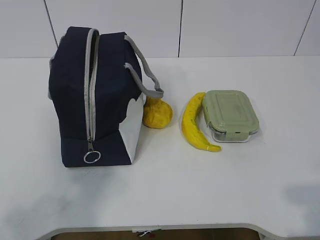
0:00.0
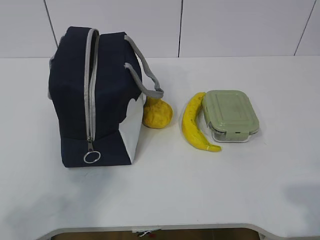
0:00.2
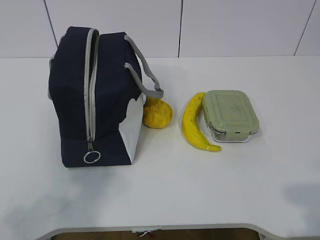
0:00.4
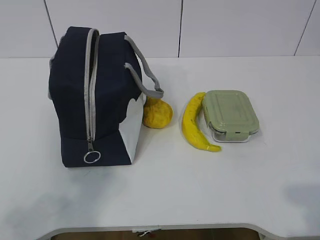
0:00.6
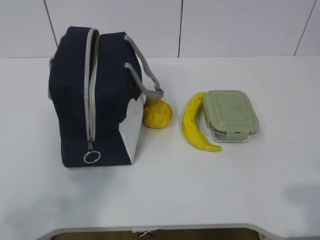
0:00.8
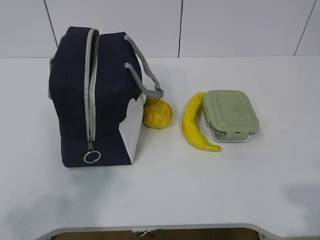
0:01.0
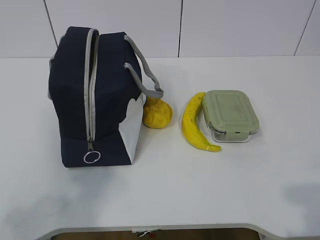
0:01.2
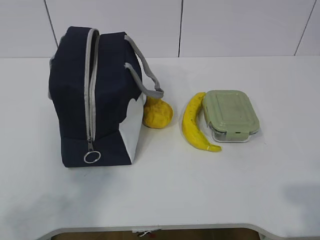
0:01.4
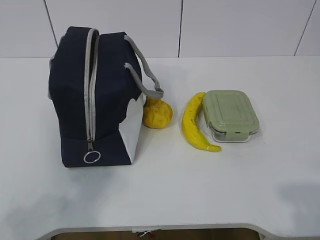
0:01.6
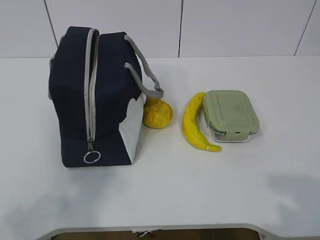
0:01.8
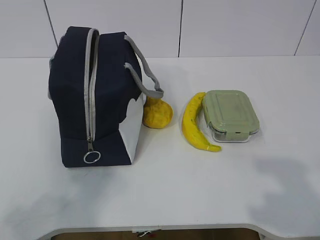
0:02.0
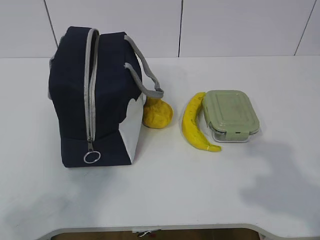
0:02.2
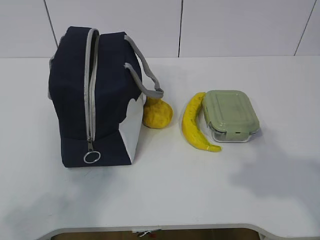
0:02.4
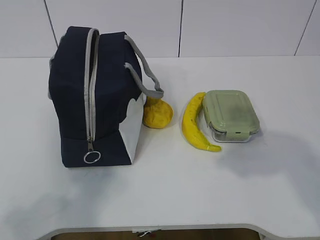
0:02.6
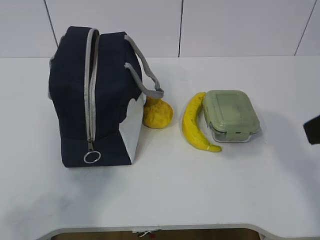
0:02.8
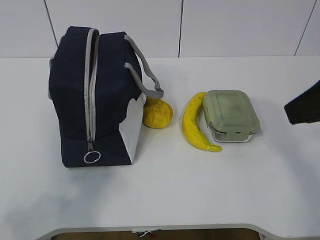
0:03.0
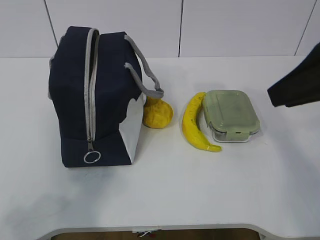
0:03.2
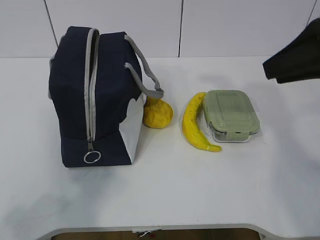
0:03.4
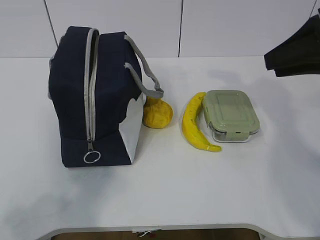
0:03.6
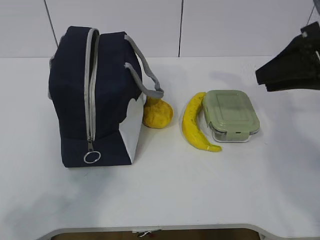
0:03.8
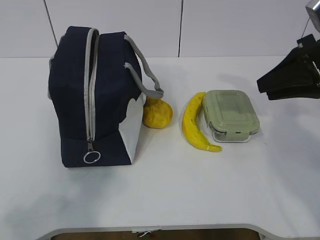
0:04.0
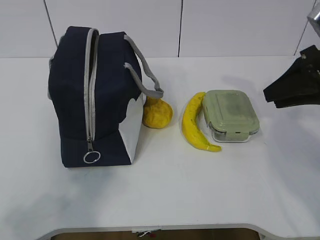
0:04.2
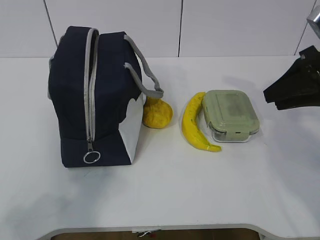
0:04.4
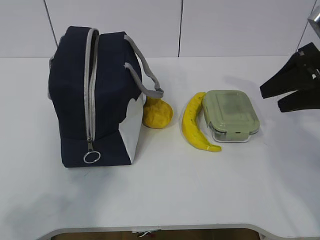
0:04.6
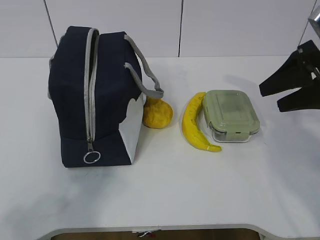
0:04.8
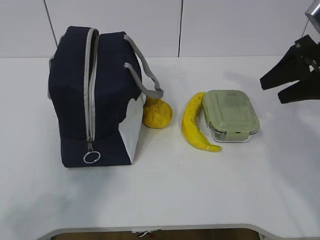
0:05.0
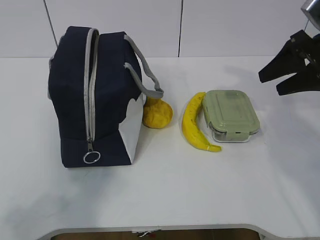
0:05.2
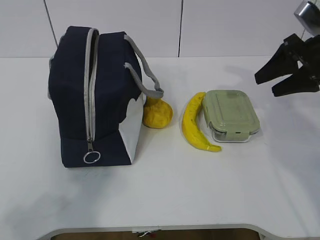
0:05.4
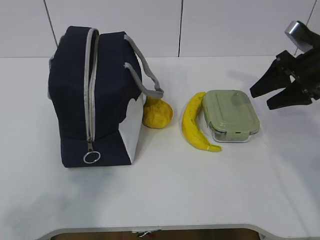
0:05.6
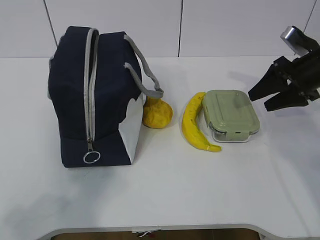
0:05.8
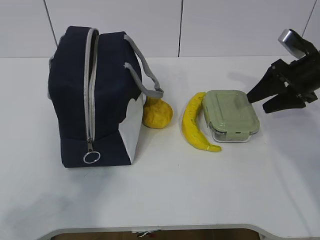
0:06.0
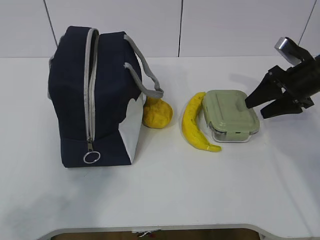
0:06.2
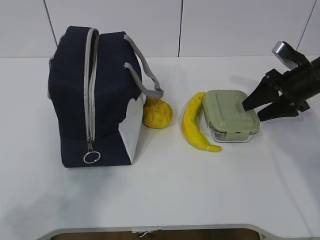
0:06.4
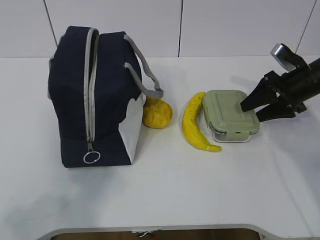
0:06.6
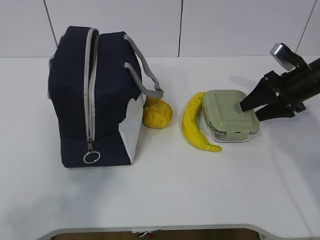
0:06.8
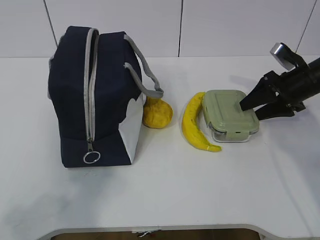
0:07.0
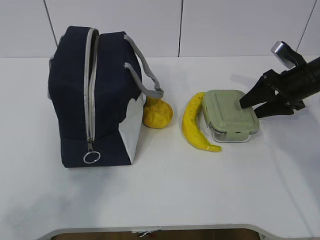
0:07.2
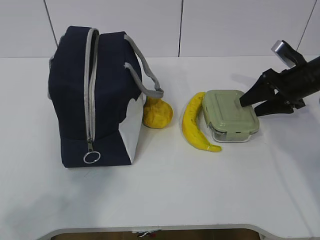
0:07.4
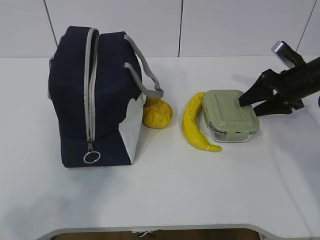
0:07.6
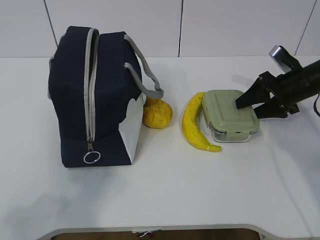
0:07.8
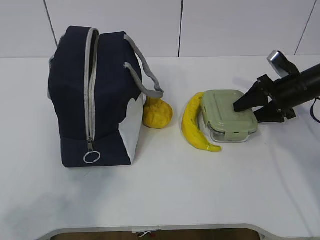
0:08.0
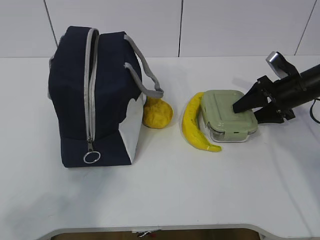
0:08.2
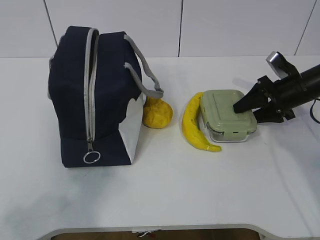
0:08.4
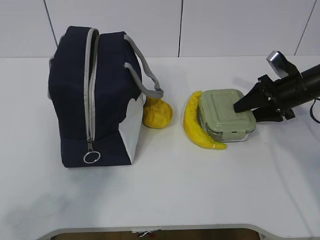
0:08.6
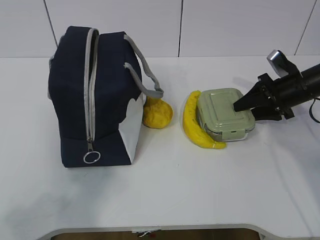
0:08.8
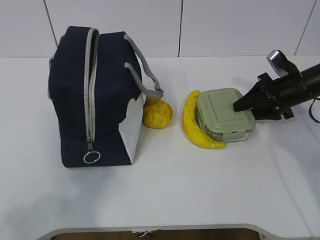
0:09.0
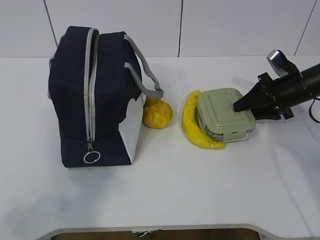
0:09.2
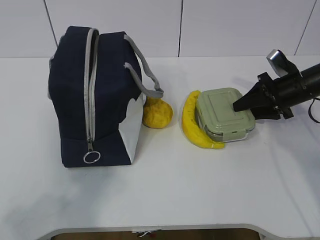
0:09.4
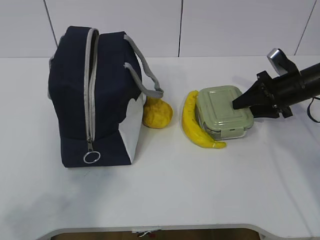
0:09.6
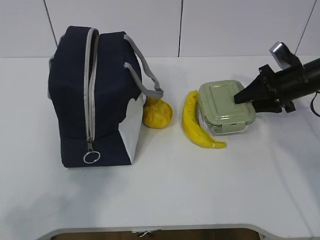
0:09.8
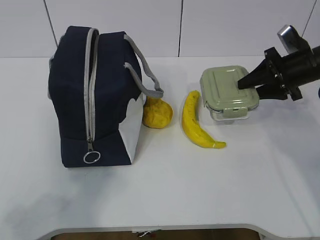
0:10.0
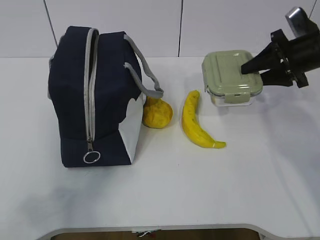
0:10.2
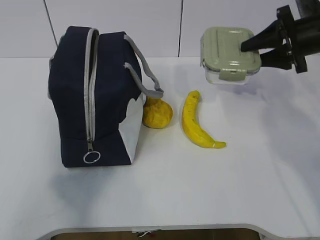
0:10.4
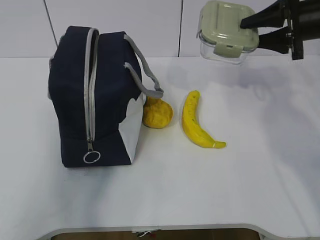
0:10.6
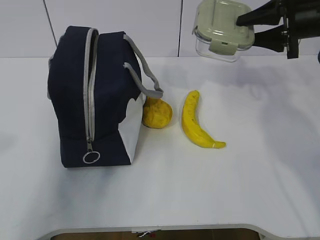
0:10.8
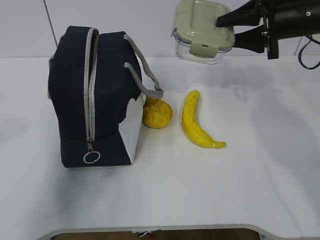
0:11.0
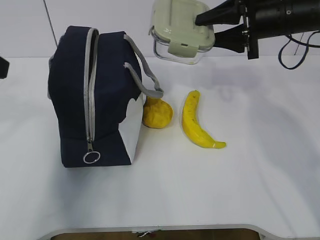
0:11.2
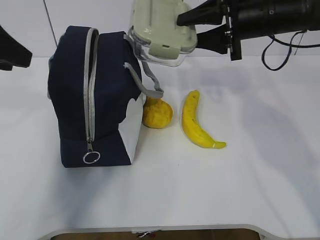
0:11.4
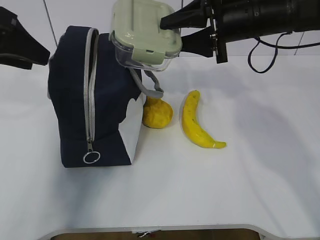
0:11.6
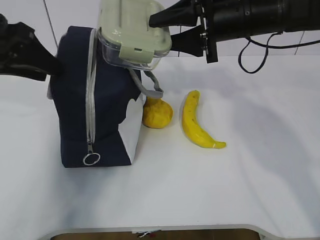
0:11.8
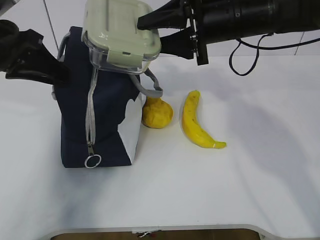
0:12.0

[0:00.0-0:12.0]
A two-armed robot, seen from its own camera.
Step, 0:00.0 to 0:07.8: Grab the lunch box with your right hand.
Step, 0:08.2 to 0:10.4: Grab the lunch bag with your left hand.
0:01.6 to 0:03.0: The right gripper shifts about 20 cm forward.
0:03.0 to 0:04.4: The right gripper is displaced forward, downward and to the right by some 15 cm.
0:04.4 to 0:06.0: The right gripper heads forward and downward, covering about 10 cm.
0:06.0 to 0:09.0: The grippers stay close to where they were, moving slightly.
0:09.0 to 0:10.4: The right gripper travels upward by approximately 10 cm. Meanwhile the left gripper ends up some 5 cm from where it was.
0:10.4 to 0:12.0: The left gripper moves forward, some 30 cm. The right gripper is displaced to the left by approximately 15 cm.

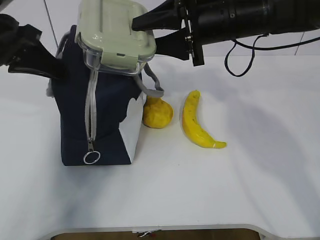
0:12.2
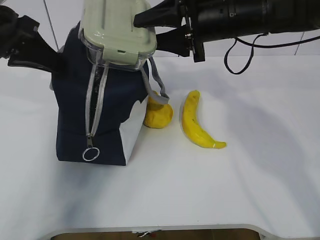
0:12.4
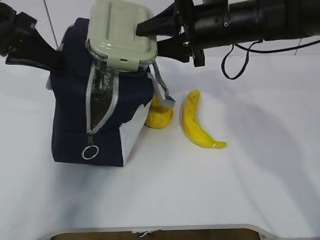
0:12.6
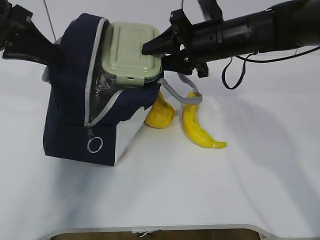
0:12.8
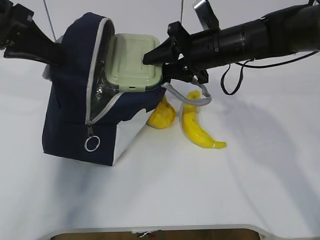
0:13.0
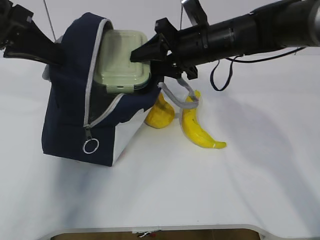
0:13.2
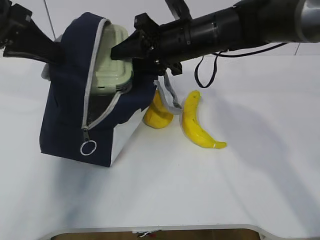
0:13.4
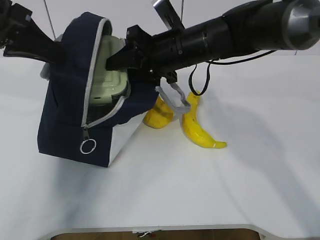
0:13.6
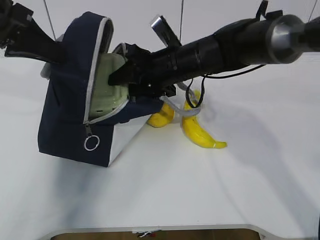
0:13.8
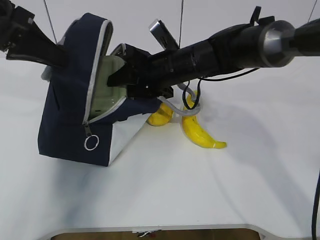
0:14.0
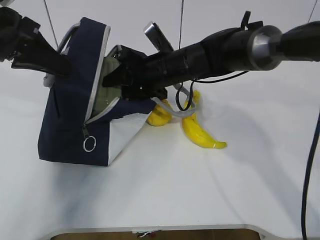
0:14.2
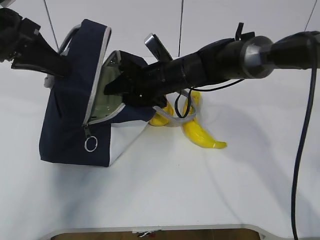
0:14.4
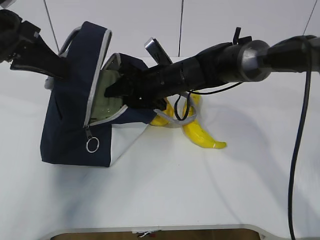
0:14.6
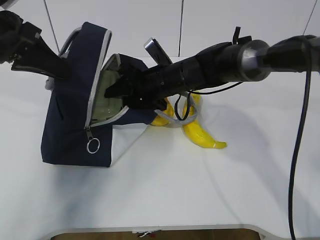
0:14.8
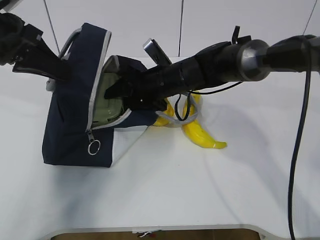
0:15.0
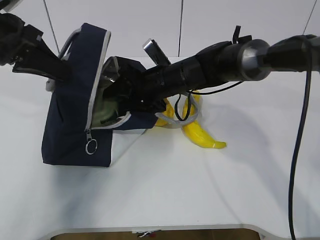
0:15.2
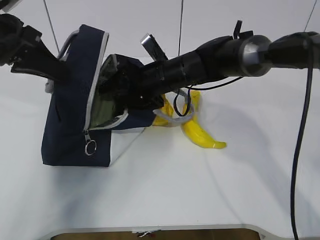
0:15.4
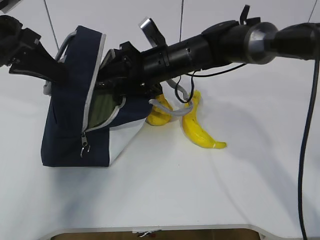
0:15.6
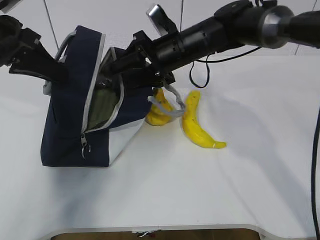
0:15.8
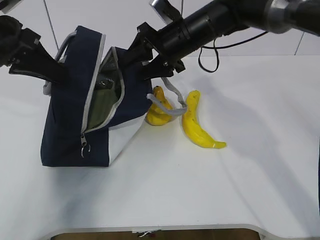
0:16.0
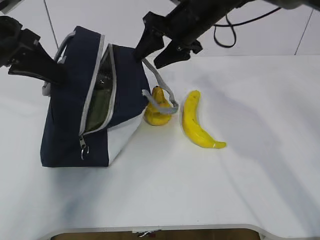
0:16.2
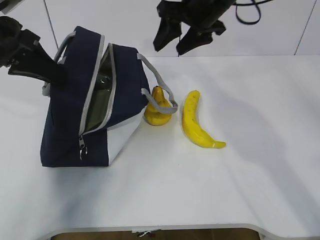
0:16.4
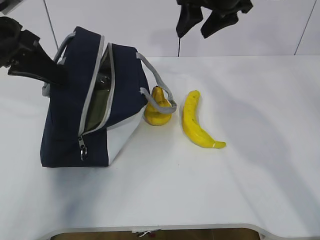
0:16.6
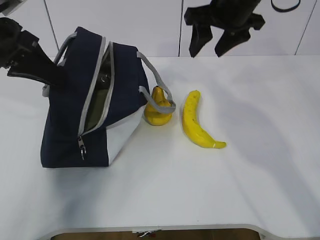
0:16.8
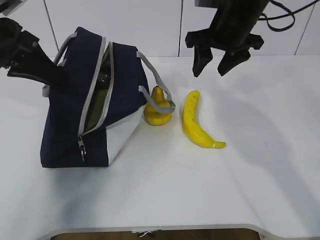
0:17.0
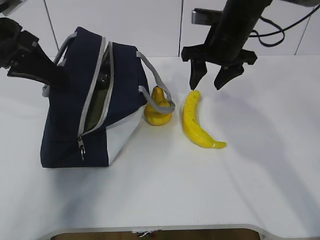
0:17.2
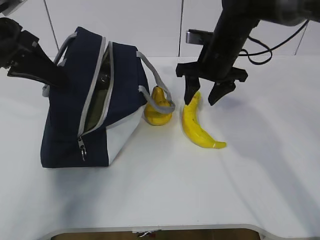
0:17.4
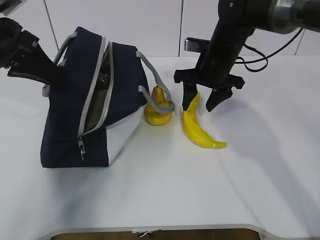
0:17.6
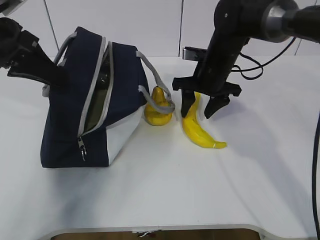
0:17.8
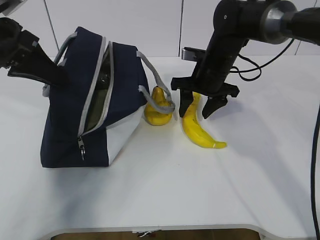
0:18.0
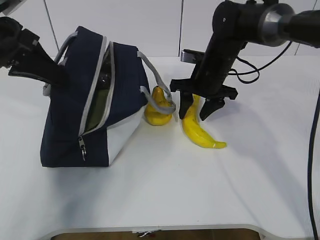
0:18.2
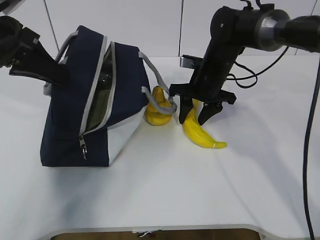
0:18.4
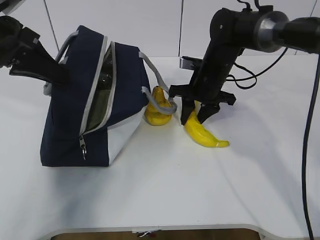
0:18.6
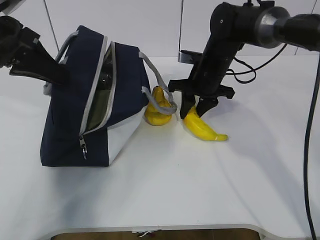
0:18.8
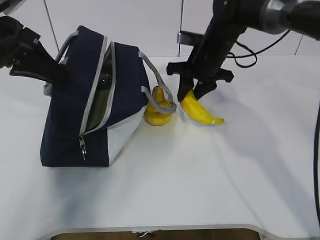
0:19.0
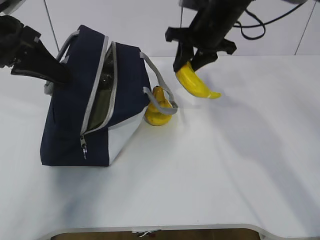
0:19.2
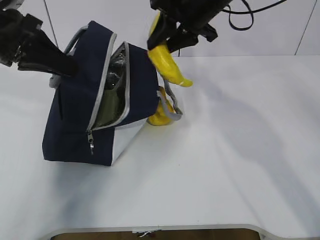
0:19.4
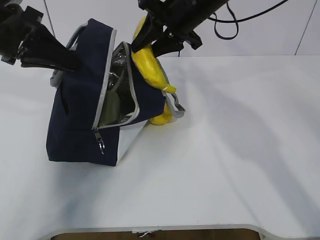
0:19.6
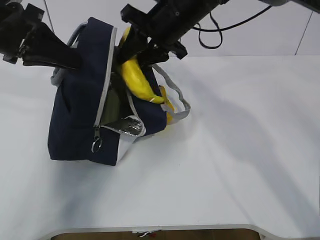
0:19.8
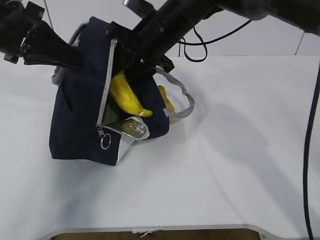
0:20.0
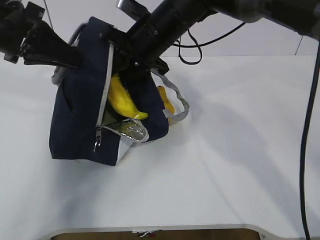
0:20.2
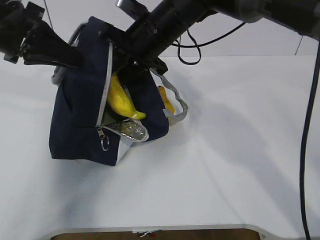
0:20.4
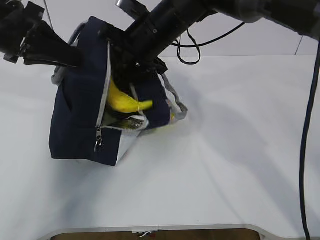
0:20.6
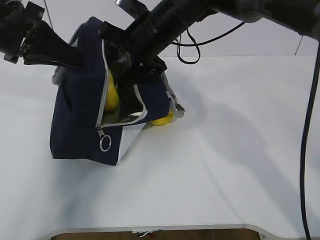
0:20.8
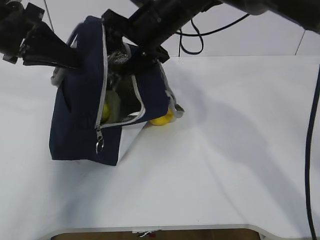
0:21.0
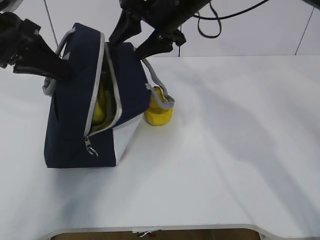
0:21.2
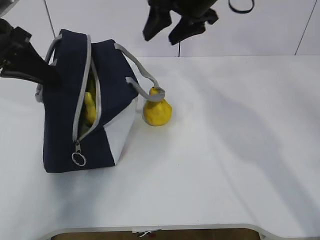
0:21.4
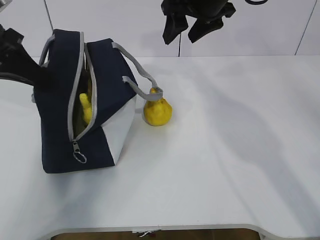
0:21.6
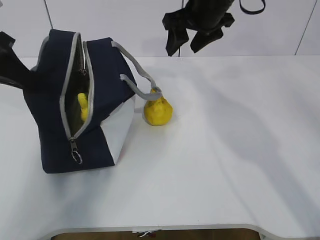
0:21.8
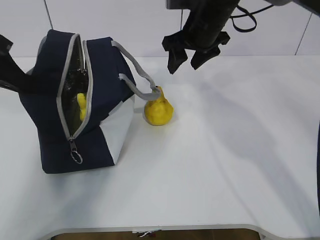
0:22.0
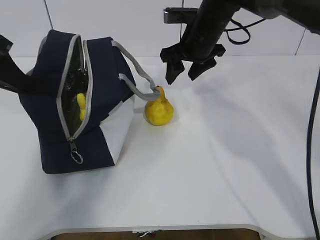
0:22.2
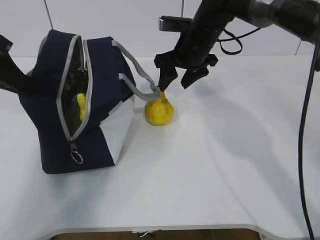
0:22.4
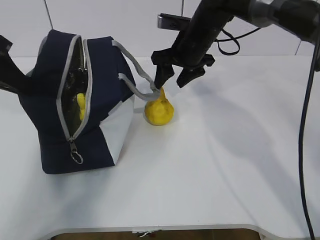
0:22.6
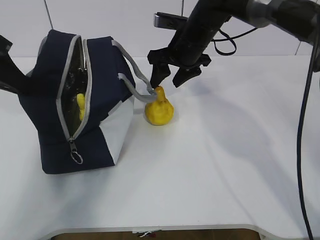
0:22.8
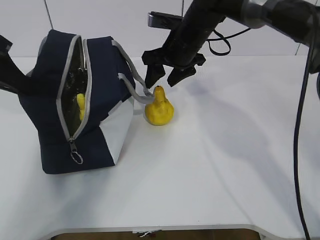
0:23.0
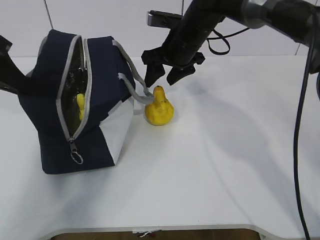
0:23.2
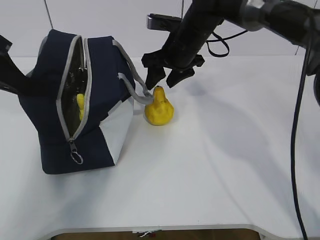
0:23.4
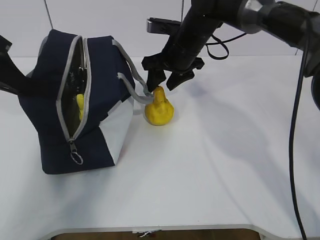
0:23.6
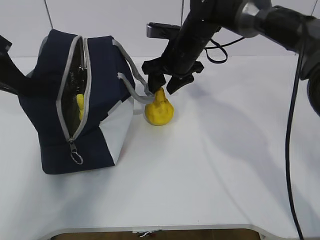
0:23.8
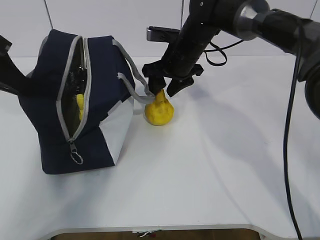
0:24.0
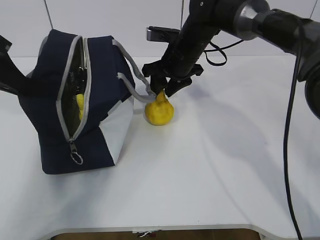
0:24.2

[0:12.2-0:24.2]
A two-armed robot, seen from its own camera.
Step, 0:12.8 to 0:15.4: Grab the banana with your right hand.
Step, 0:15.6 to 0:17.4: Place it into the bag with your right hand.
Step, 0:17.6 to 0:20.2: Grab the pear with your right hand.
Step, 0:20.6 to 0:22.0: Secure the lunch bag with your left hand.
Step, 0:22.2 to 0:23.2: Grab the lunch bag with your right hand.
0:12.2 to 0:13.8: The right gripper heads downward and to the left, covering some 10 cm.
0:13.8 to 0:15.2: The right gripper shifts by roughly 5 cm.
0:15.2 to 0:16.6: The right gripper is displaced upward and to the right by some 20 cm.
0:16.6 to 0:18.2: The right gripper moves downward, roughly 15 cm.
0:18.2 to 0:19.8: The right gripper is displaced upward and to the left by some 15 cm.
0:19.8 to 0:21.2: The right gripper opens.
0:21.2 to 0:22.6: The right gripper goes about 10 cm downward.
0:22.6 to 0:24.2: The grippers stay close to where they were, moving slightly.
